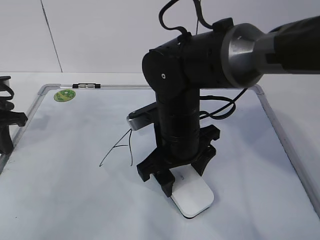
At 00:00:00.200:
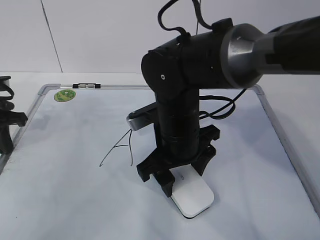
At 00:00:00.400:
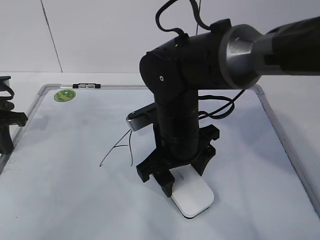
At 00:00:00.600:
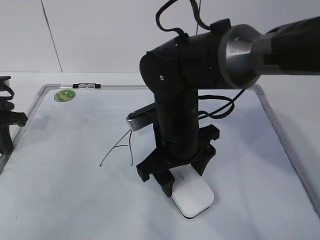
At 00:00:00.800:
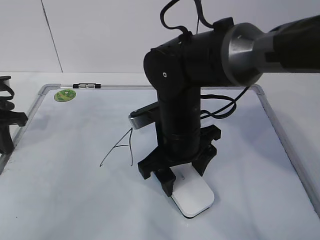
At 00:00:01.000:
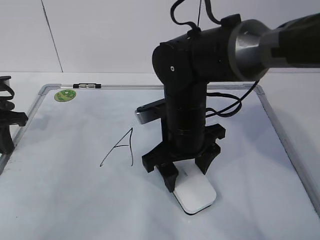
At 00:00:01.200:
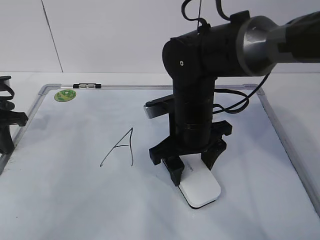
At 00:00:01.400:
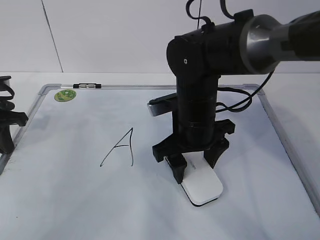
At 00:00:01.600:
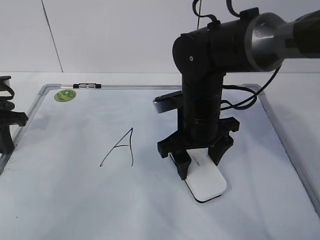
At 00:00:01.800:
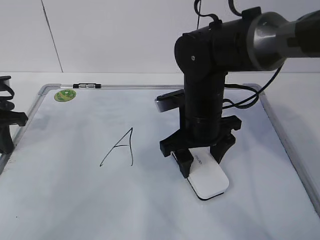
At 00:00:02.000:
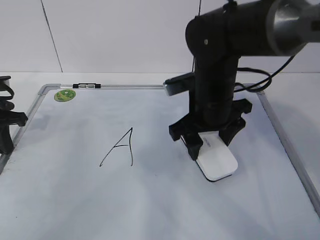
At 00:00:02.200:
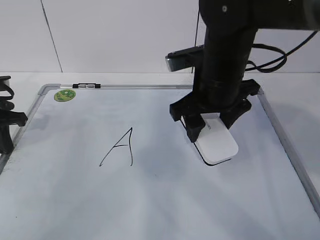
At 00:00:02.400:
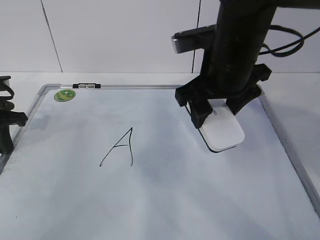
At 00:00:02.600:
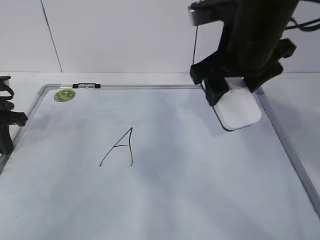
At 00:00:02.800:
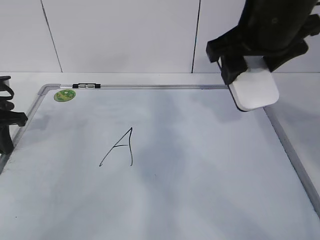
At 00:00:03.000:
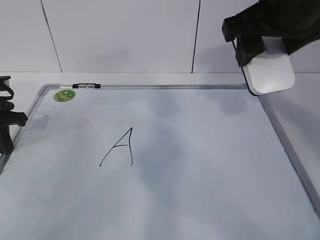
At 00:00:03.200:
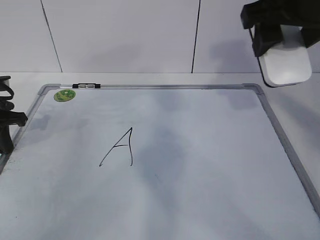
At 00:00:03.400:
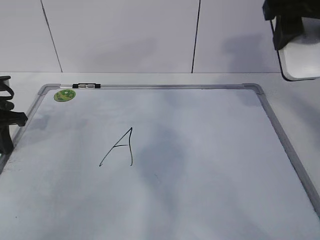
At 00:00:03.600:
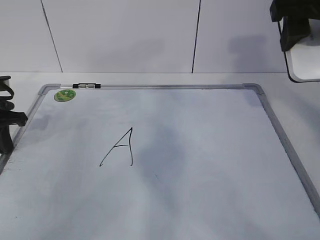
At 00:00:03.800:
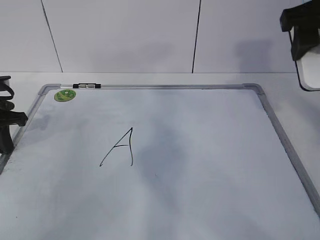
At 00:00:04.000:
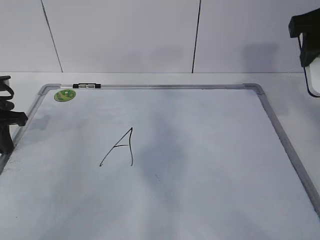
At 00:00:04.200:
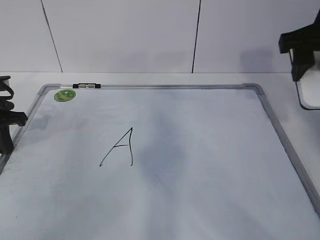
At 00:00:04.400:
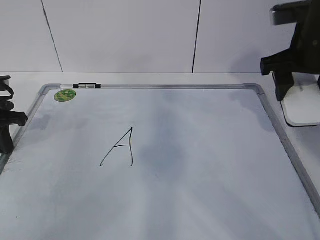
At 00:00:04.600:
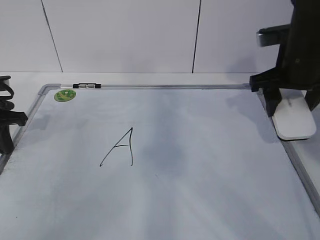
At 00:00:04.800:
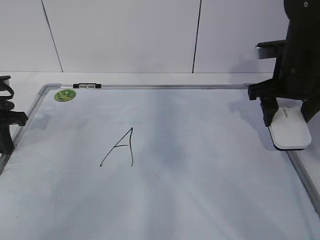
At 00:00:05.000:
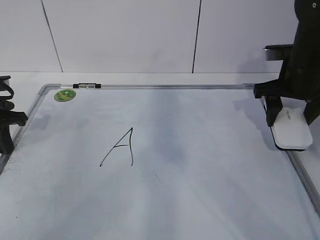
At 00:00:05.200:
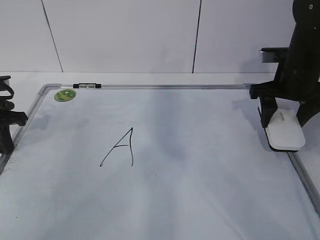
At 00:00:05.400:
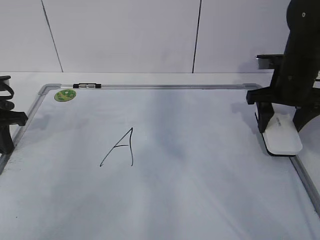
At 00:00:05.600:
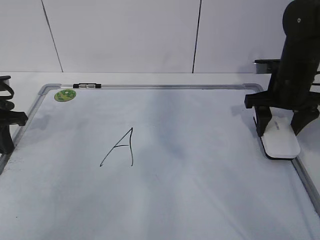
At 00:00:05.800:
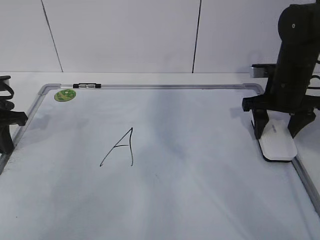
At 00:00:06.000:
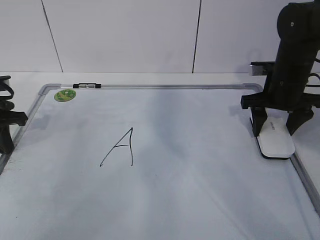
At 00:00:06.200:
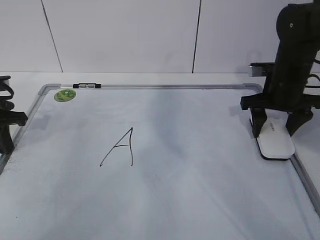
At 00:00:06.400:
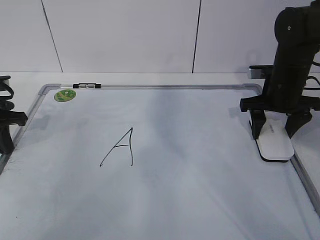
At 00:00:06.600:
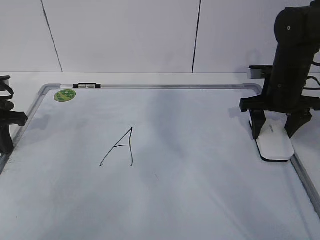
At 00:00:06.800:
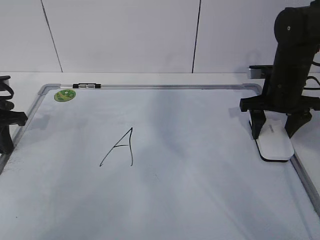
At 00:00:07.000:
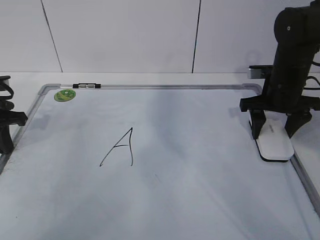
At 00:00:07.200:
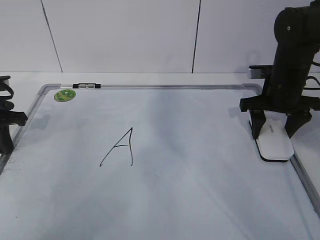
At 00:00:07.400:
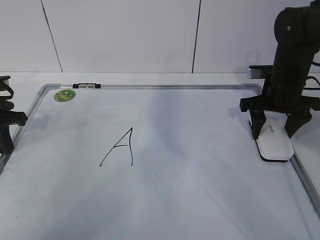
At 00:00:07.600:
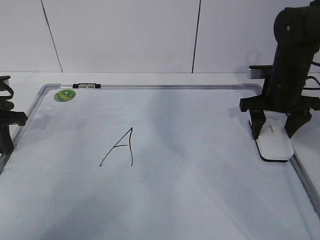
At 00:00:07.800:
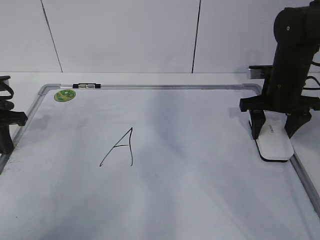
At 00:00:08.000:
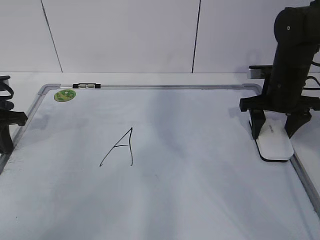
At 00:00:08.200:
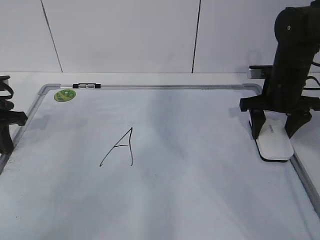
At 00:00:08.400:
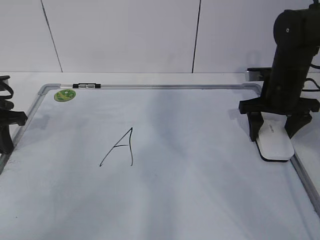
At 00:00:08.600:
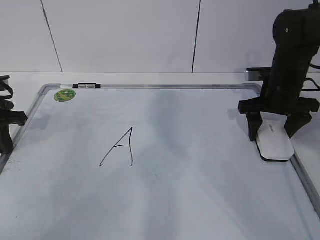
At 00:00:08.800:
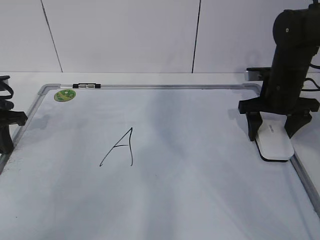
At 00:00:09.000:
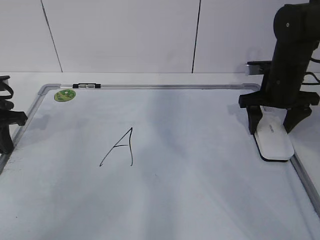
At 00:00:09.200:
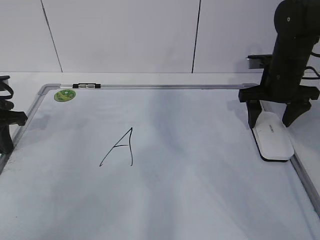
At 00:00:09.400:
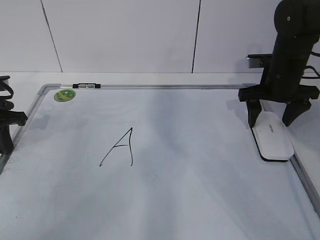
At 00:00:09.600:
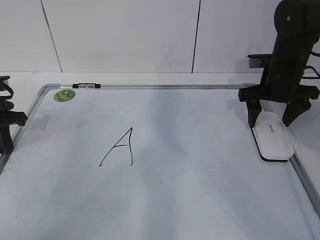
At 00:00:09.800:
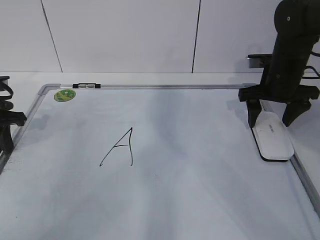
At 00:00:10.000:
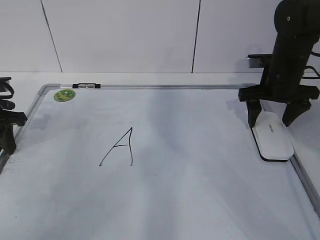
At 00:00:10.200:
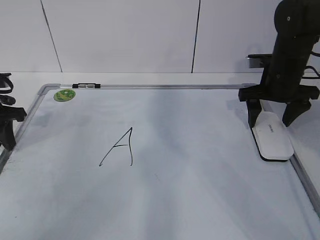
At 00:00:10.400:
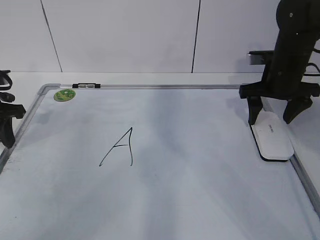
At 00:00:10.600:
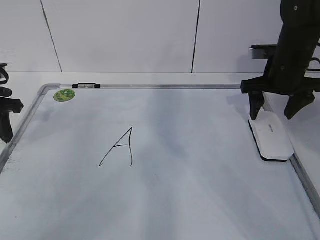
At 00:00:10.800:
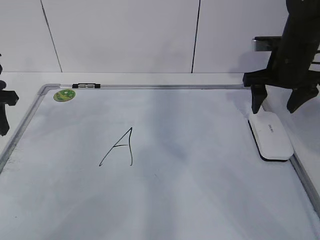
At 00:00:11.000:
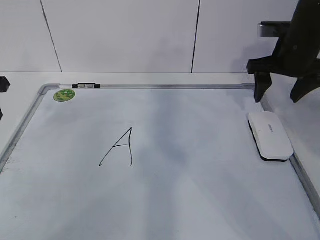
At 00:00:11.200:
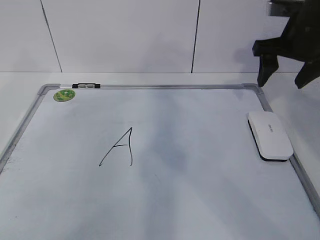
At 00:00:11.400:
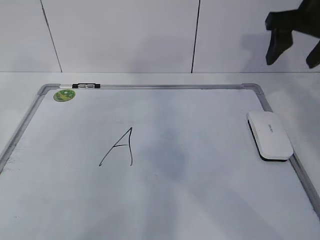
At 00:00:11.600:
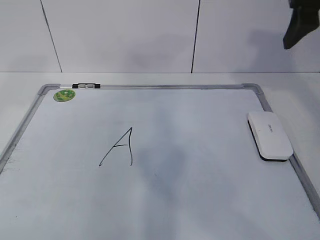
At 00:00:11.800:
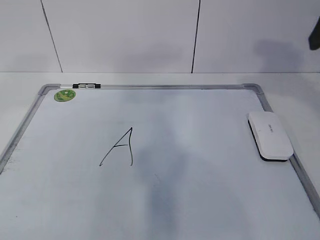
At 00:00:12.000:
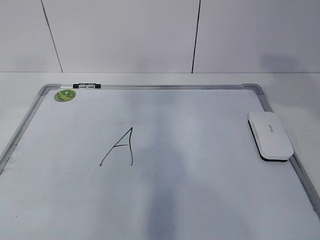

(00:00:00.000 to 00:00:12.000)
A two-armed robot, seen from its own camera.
Task of the whole recording: pick up the eraser on the blackboard and erase the letter "a".
Step, 00:00:00.000 - 00:00:03.000: Put down the eraser with your right hand.
00:00:00.000 - 00:00:01.600: The right gripper changes place by some 5 cm.
00:00:01.600 - 00:00:03.000: The right gripper travels upward by about 20 cm.
00:00:03.000 - 00:00:04.400: The right gripper travels to the right, downward and forward by approximately 10 cm.
00:00:04.400 - 00:00:06.000: The right gripper heads downward and forward, covering some 10 cm.
00:00:06.000 - 00:00:07.600: The two grippers keep their place.
00:00:07.600 - 00:00:09.000: The right gripper opens up.
00:00:09.000 - 00:00:10.400: The left gripper opens up.
00:00:10.400 - 00:00:12.000: The grippers both shift upward and backward by some 25 cm.

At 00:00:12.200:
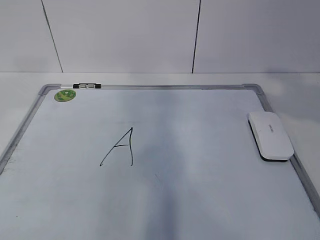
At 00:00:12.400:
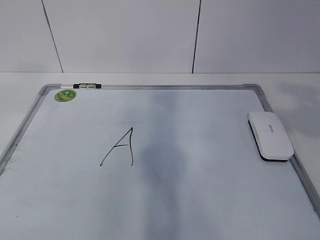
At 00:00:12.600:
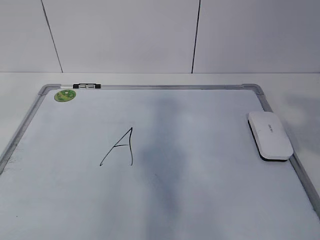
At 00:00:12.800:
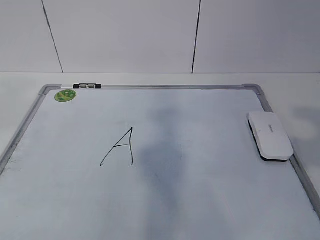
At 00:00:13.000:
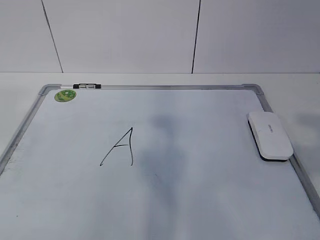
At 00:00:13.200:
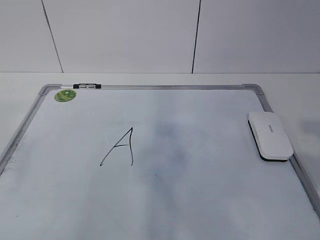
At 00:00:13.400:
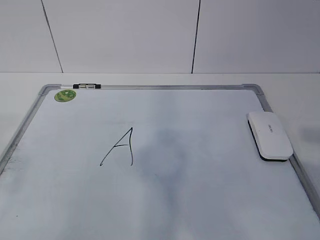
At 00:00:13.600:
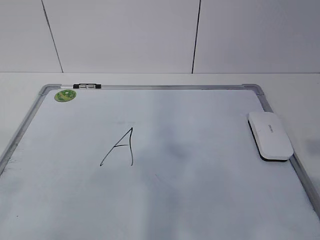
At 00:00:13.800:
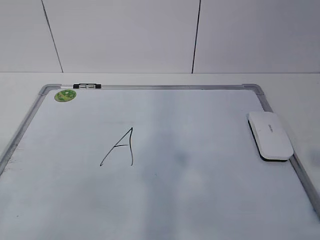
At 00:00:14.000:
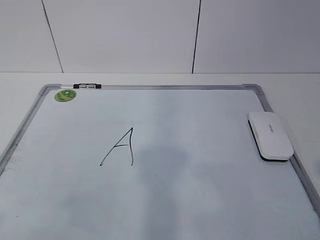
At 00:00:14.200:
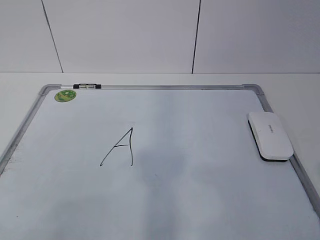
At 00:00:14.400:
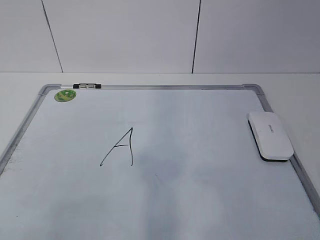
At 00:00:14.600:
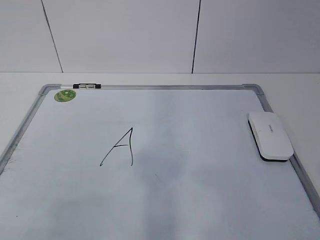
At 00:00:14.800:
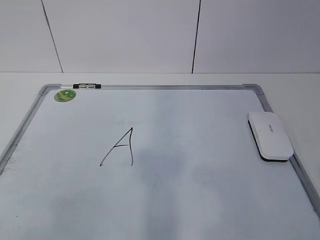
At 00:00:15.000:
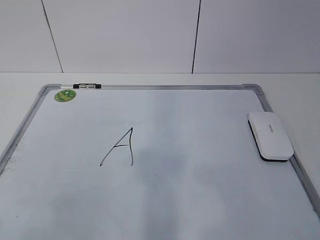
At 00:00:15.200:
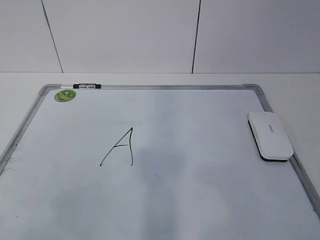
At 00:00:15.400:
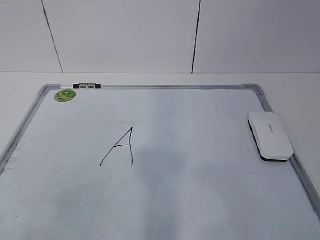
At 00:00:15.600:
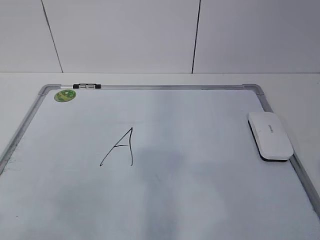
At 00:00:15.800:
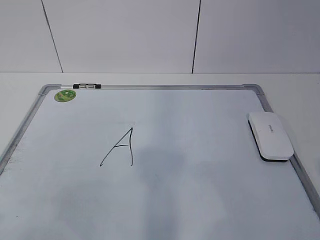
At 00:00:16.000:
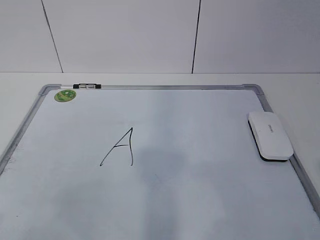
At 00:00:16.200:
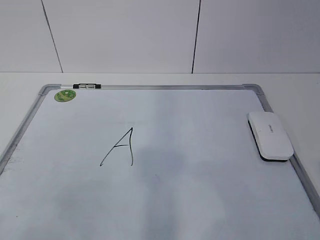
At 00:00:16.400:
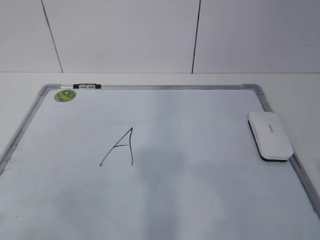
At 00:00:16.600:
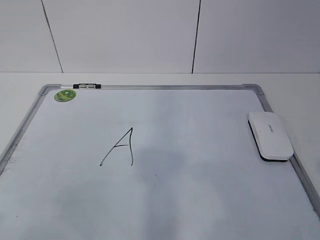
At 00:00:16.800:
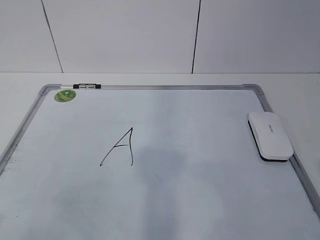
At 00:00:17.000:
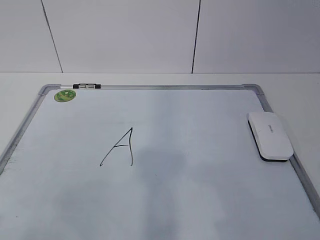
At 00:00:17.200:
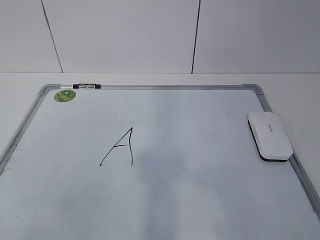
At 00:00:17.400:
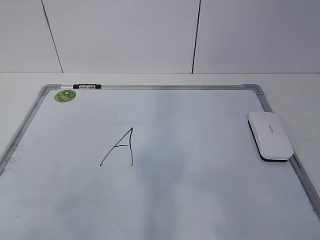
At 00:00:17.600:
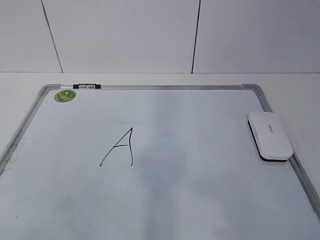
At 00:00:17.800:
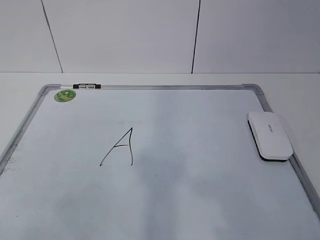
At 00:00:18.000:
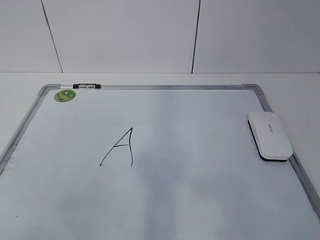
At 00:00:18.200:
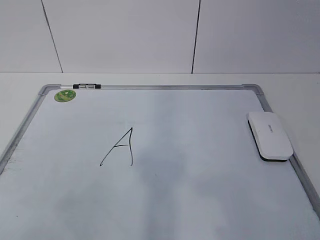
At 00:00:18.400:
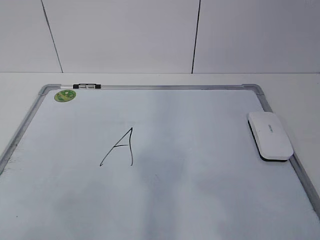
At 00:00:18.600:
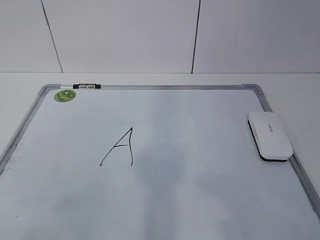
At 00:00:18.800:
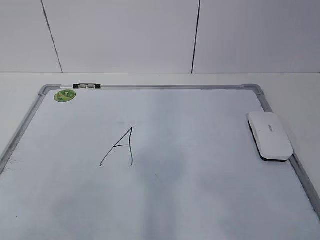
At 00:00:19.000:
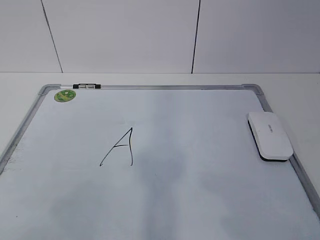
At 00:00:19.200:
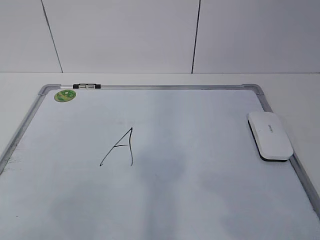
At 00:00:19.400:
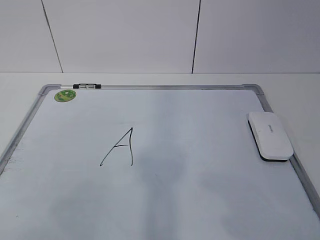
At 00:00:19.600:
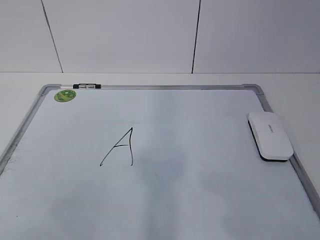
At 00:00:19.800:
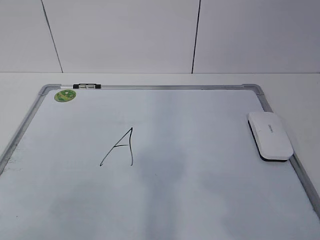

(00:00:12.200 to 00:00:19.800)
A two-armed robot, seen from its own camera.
Task of the whole recording: pick up the eraser on the blackboard and erase the letter "a".
00:00:12.200 - 00:00:13.800: Both grippers move backward and downward, some 20 cm. The right gripper closes up.
